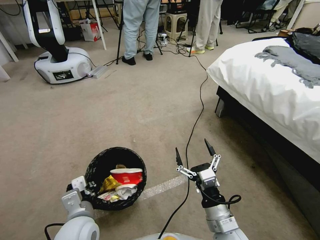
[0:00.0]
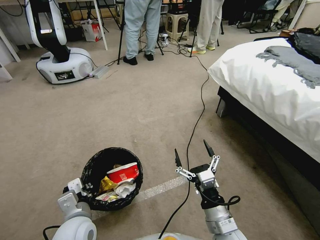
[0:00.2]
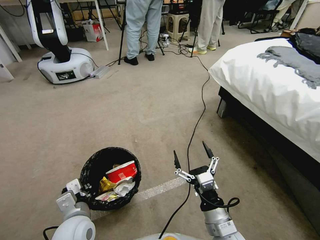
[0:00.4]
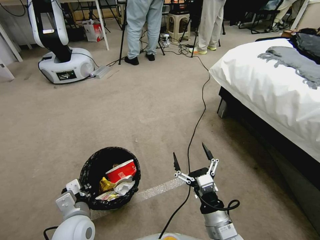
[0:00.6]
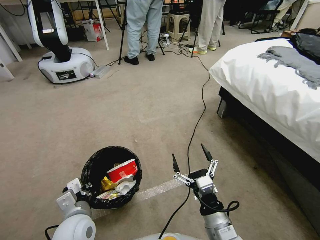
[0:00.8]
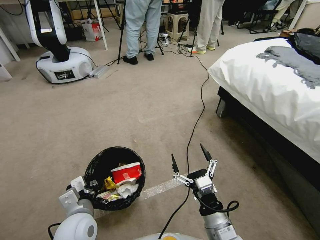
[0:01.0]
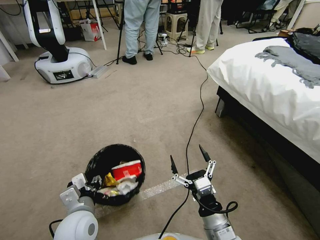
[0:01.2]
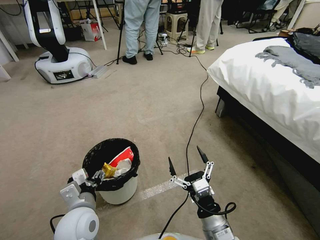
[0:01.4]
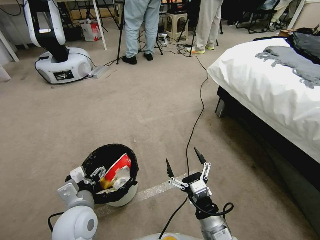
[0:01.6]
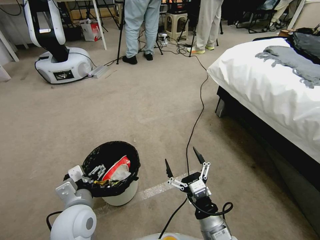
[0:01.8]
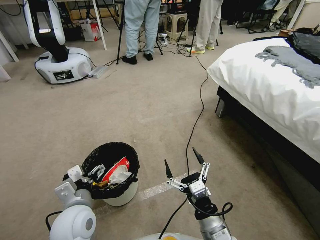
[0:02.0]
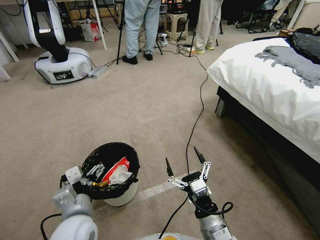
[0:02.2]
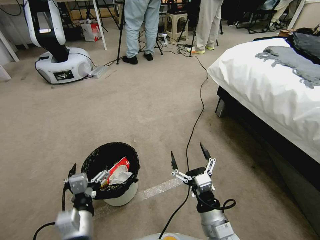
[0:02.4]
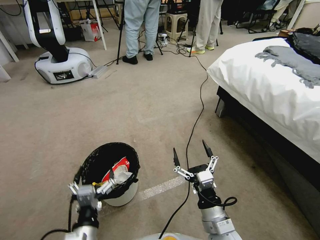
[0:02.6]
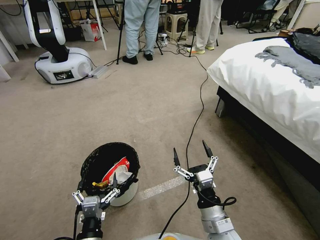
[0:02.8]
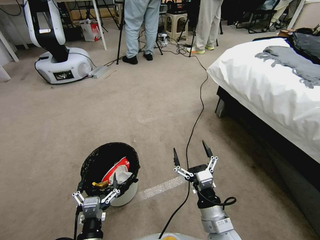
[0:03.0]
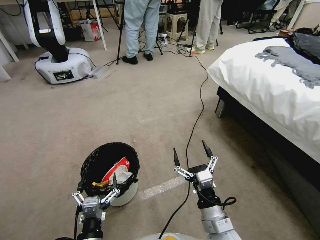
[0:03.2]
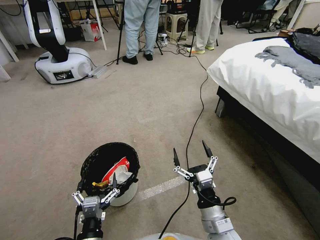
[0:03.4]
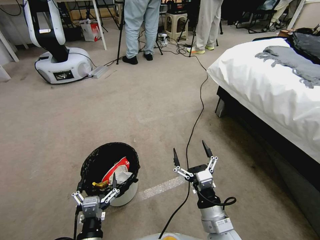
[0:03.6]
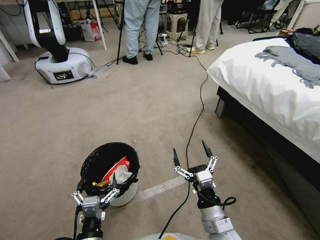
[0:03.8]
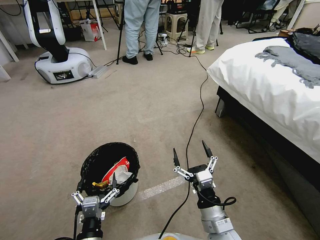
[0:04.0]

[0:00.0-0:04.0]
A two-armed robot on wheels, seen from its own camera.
Task of the whole recording: Pick up the trash bin, then pick up the garbage from the floor and place it into the trash bin.
0:00.0 to 0:01.4: The left gripper opens up.
0:01.4 to 0:02.6: The left gripper shifts about 10 cm backward.
0:02.6 to 0:04.0: There are only small adjustments of the grippers.
